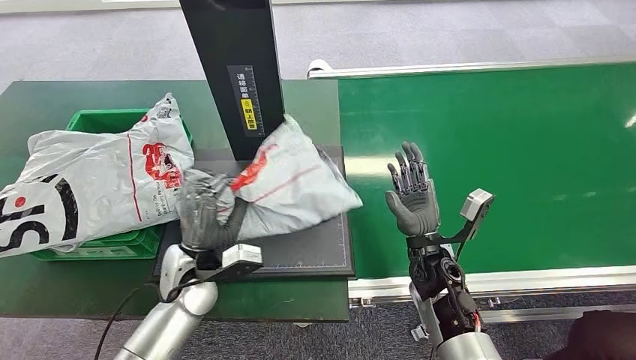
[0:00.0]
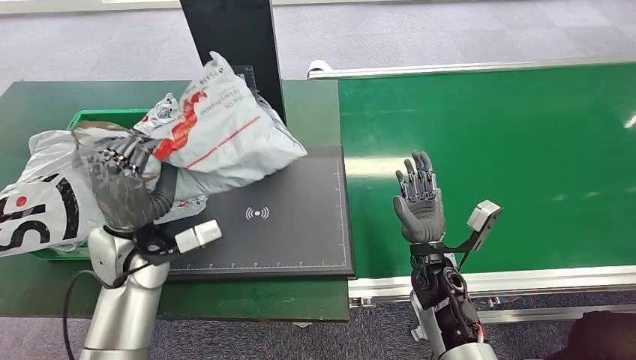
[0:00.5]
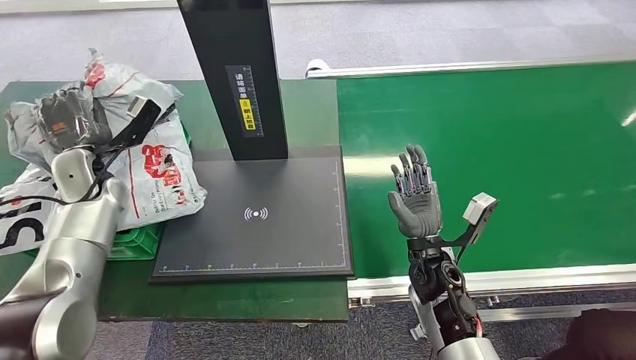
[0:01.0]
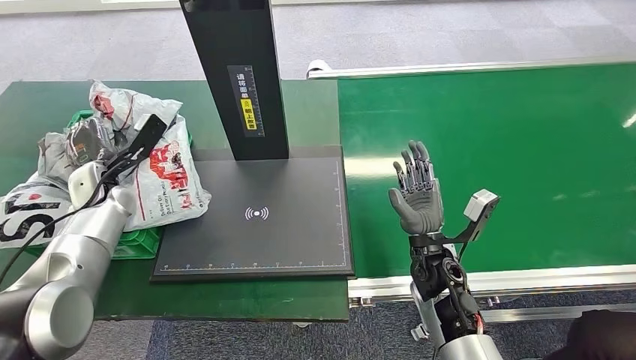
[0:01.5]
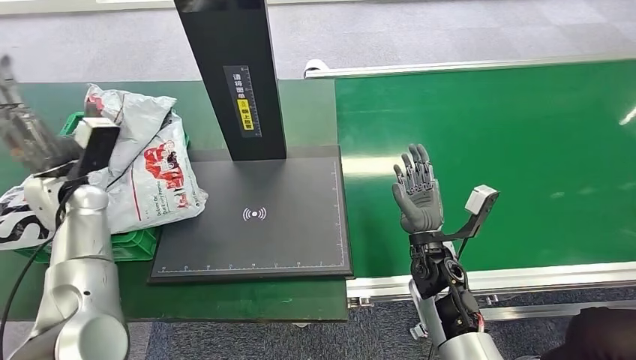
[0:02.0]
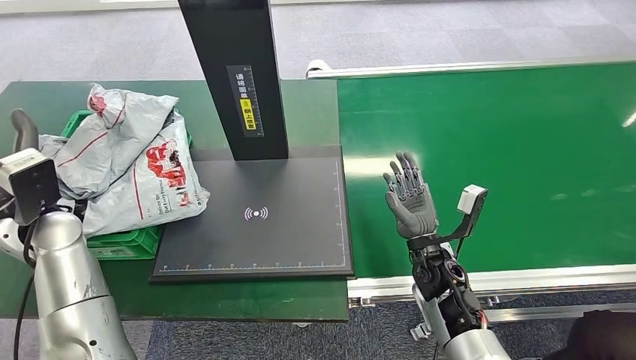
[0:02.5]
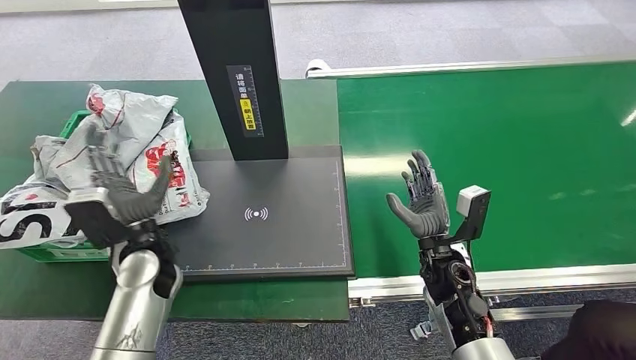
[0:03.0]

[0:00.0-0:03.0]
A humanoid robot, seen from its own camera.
Step, 0:01.0 to 0:03.0: Place the package into the parcel locker.
